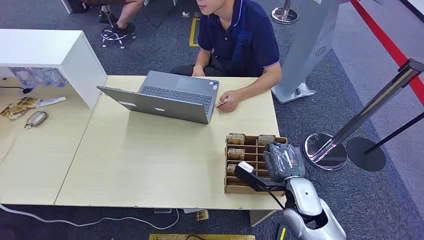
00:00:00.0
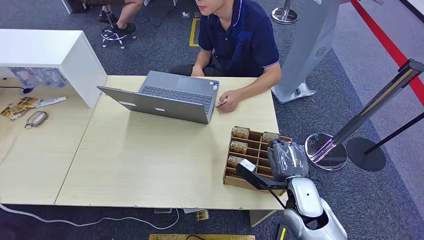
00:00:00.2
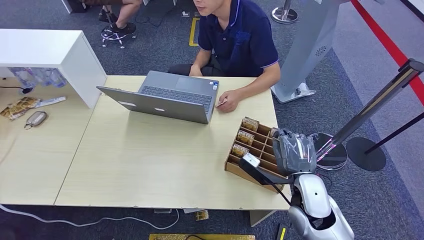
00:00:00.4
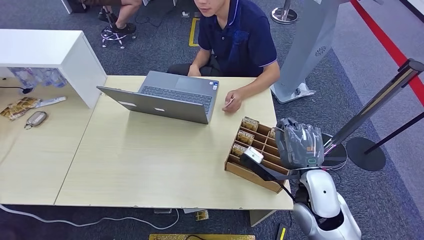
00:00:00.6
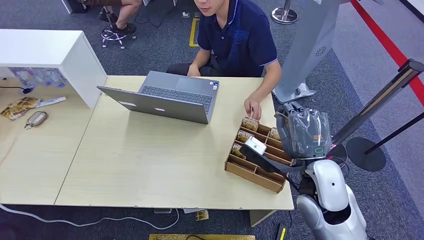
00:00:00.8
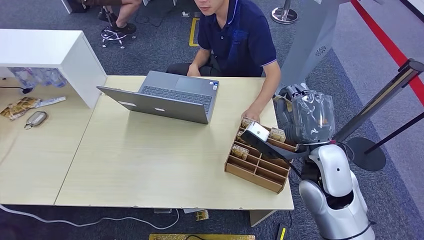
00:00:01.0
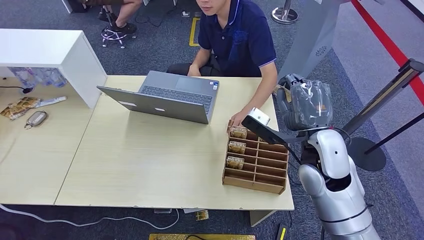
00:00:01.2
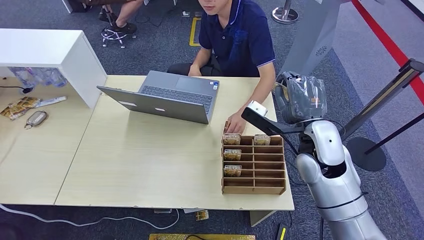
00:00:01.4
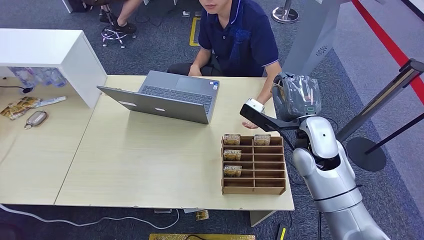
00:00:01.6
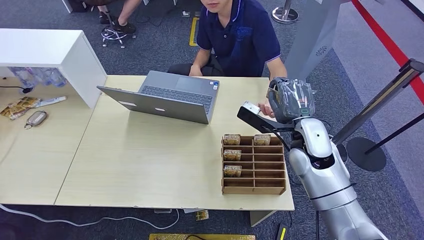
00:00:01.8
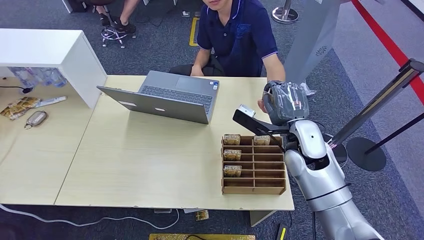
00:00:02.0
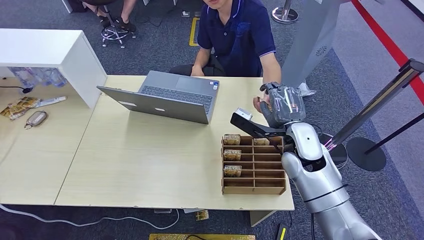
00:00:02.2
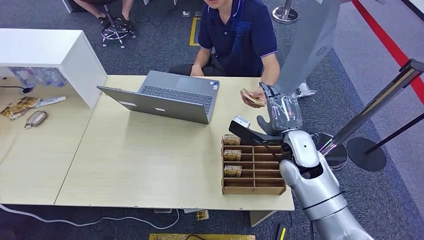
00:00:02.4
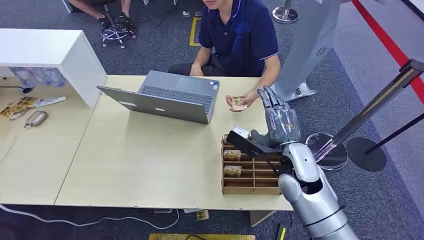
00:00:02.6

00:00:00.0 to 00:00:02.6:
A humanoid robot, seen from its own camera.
Step, 00:00:00.0 to 00:00:00.6: Pick up the key card from the card box.
00:00:01.2 to 00:00:02.6: The right hand goes roughly 10 cm downward.
